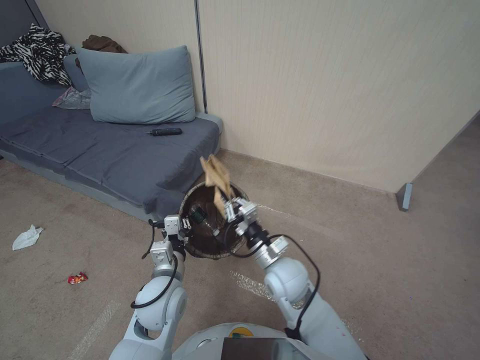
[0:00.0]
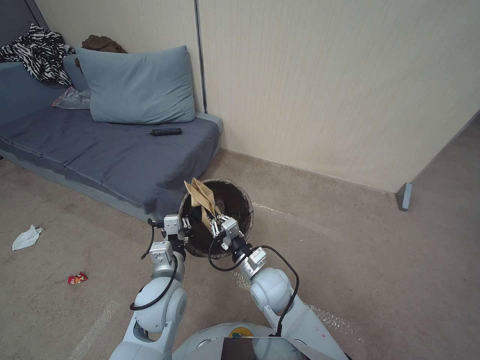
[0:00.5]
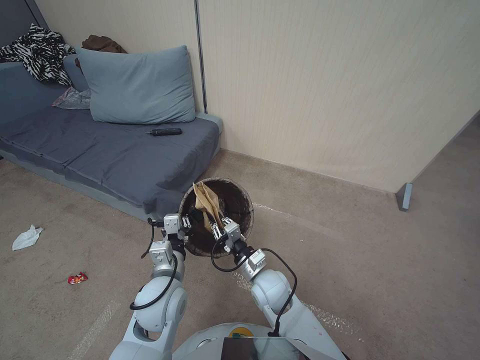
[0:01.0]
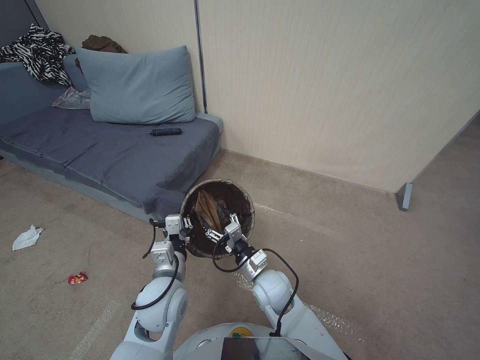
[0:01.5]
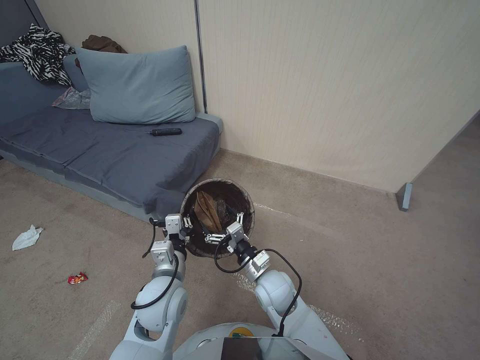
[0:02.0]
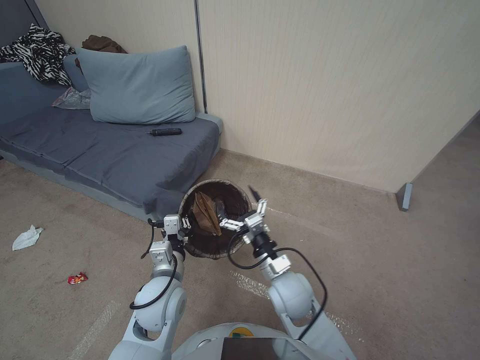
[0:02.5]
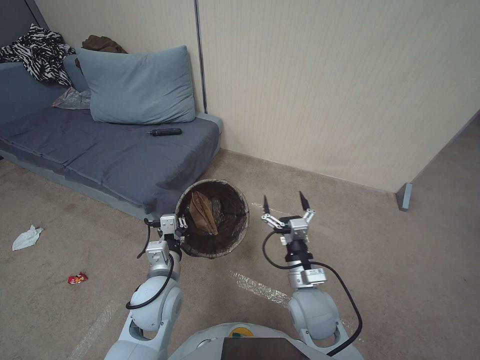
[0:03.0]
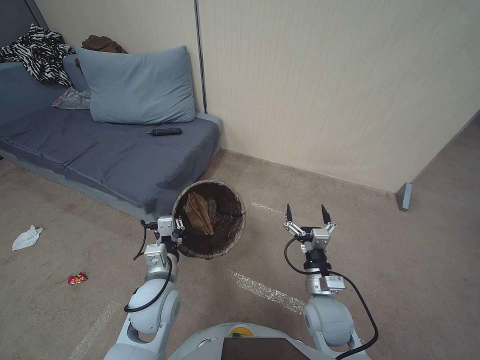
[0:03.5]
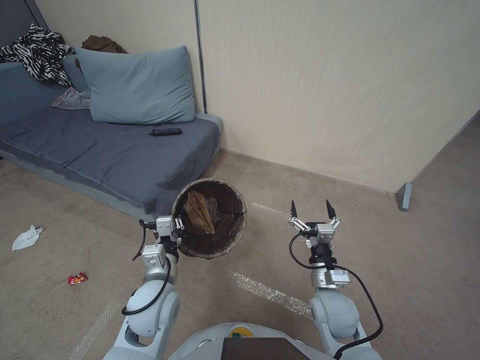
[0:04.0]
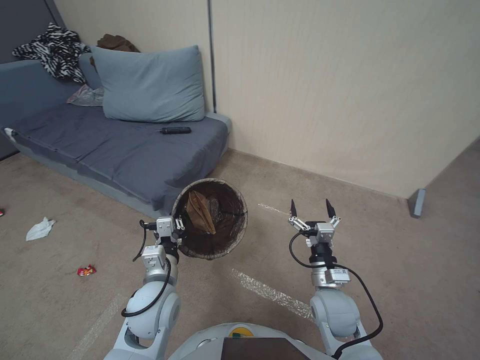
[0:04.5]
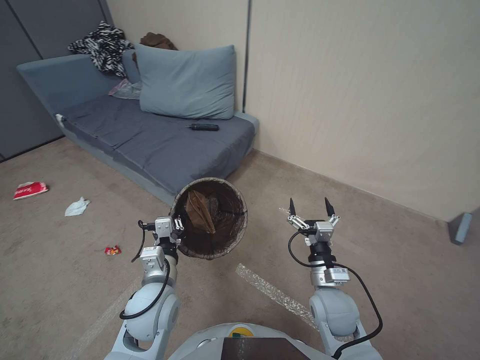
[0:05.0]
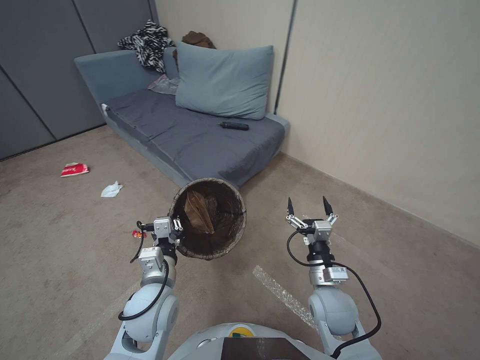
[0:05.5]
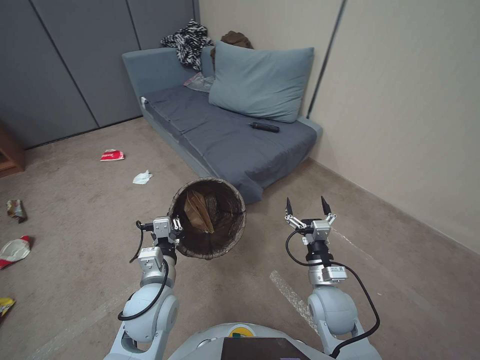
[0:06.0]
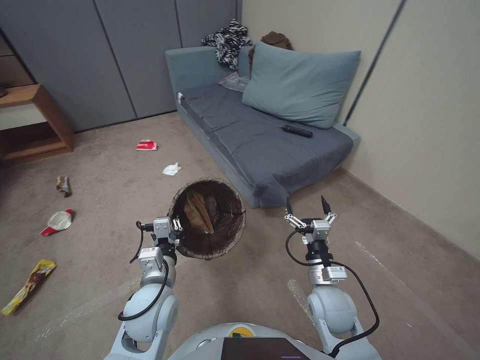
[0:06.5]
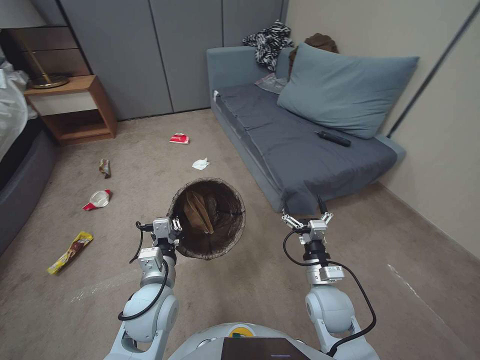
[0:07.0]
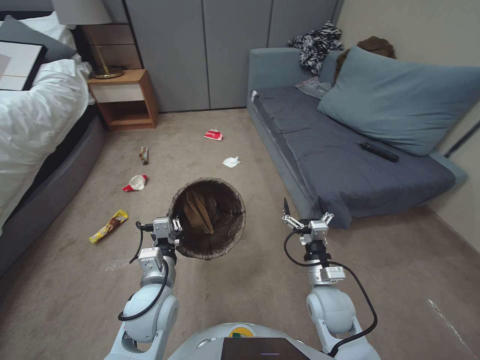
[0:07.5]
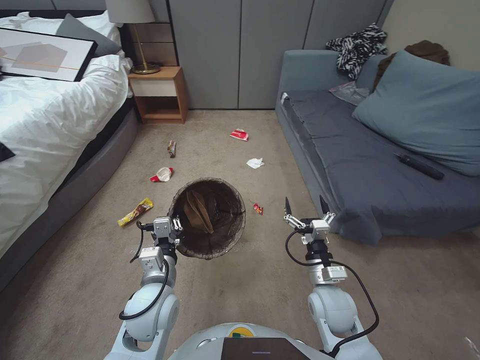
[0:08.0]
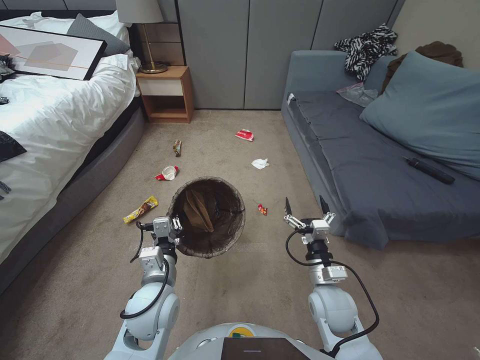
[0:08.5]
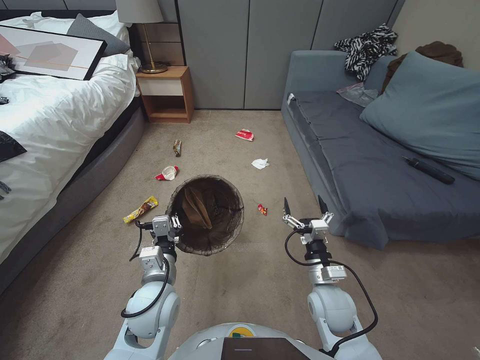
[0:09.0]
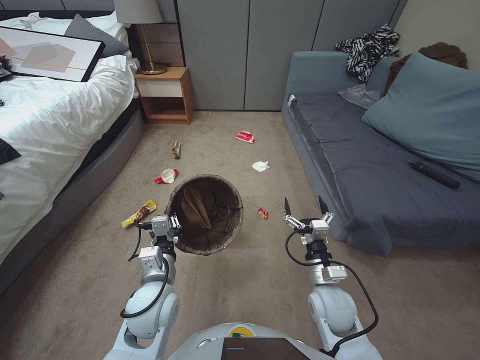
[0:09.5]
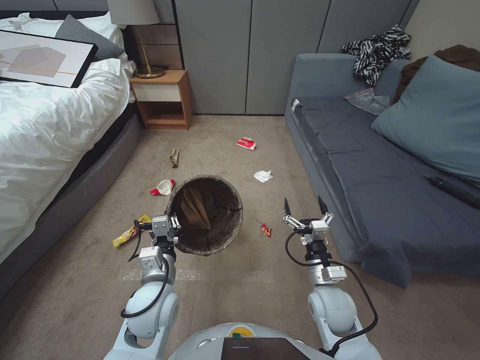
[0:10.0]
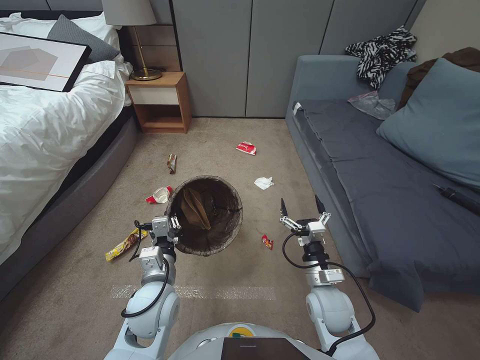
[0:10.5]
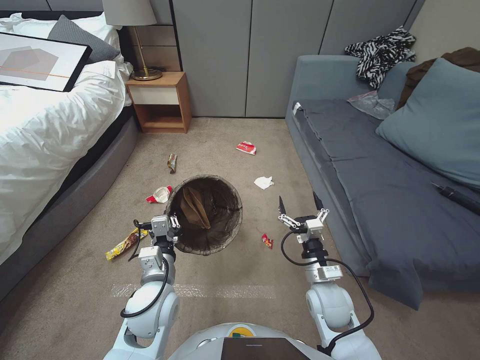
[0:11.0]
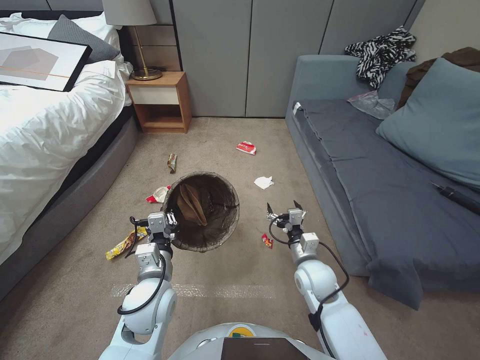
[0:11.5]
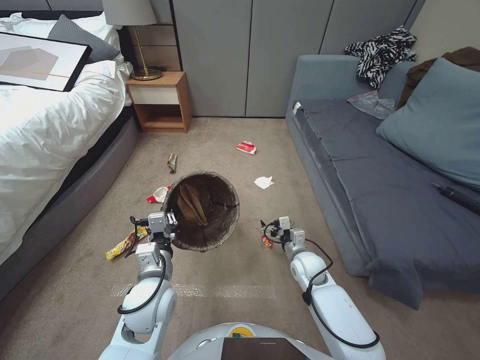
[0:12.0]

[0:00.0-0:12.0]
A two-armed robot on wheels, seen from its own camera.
Task of the whole recording: Pick up the trash bin, then pick up the garbage from the floor and place it into the trash bin.
0:00.0 to 0:02.0: The right gripper goes some 10 cm downward, and opens.
0:02.0 to 0:04.0: The right gripper travels to the right by about 15 cm.
0:08.0 to 0:10.0: Neither gripper changes place.
0:10.0 to 0:12.0: The right gripper is displaced forward and downward by about 10 cm.

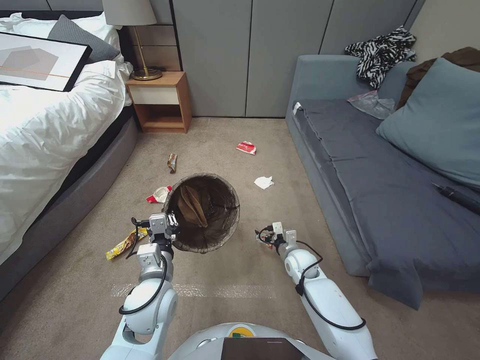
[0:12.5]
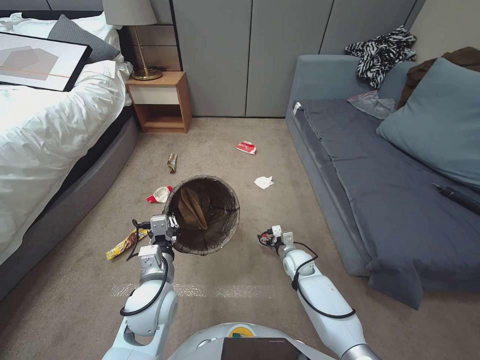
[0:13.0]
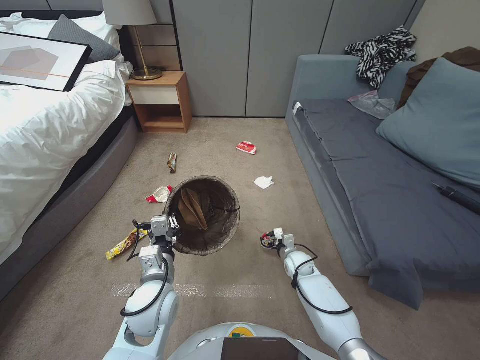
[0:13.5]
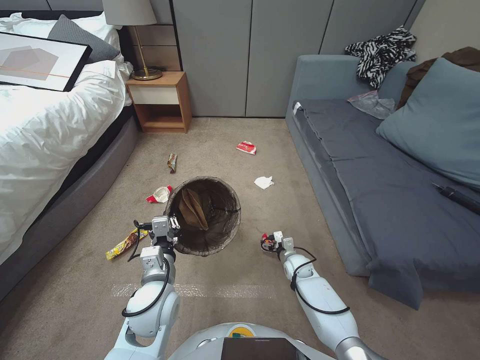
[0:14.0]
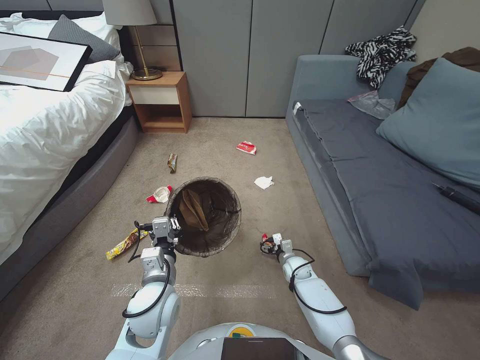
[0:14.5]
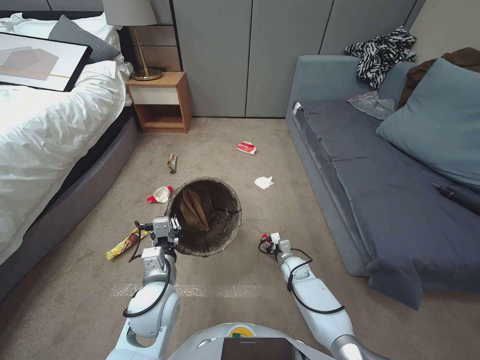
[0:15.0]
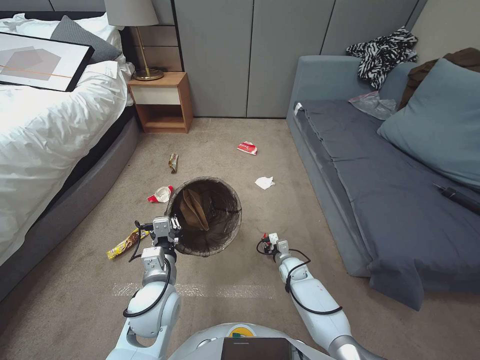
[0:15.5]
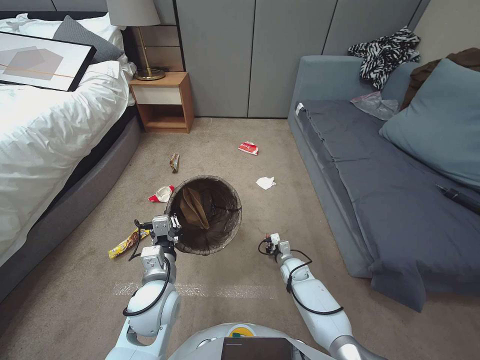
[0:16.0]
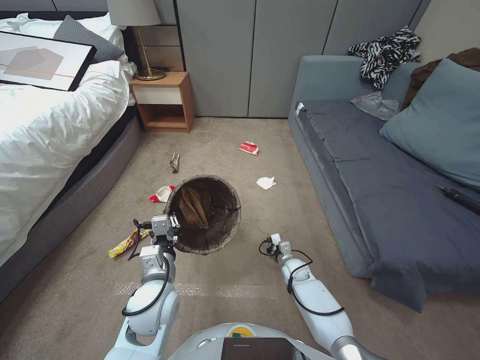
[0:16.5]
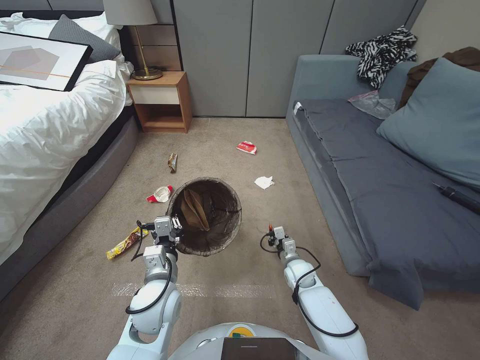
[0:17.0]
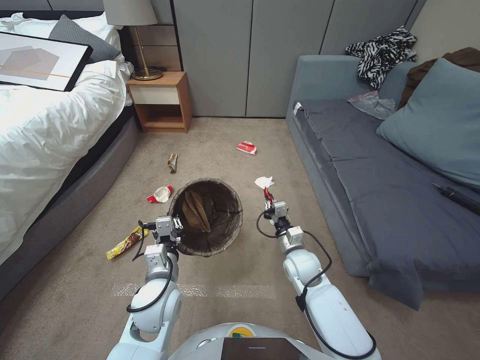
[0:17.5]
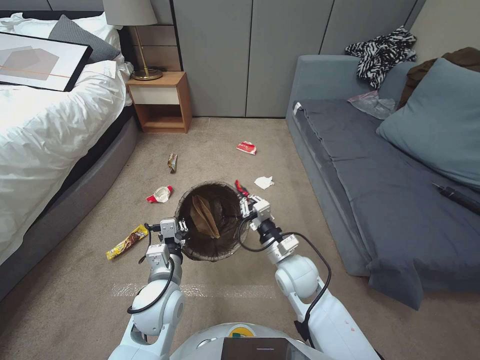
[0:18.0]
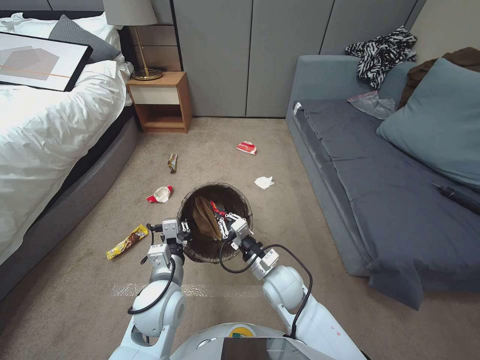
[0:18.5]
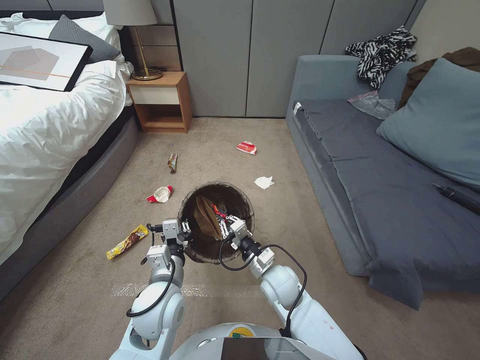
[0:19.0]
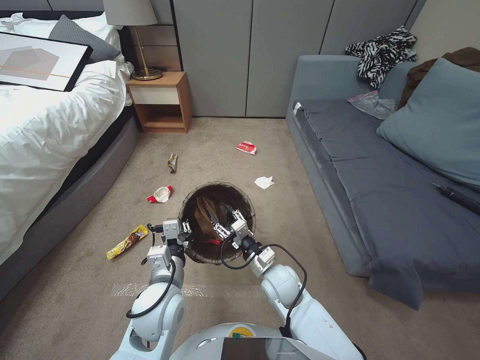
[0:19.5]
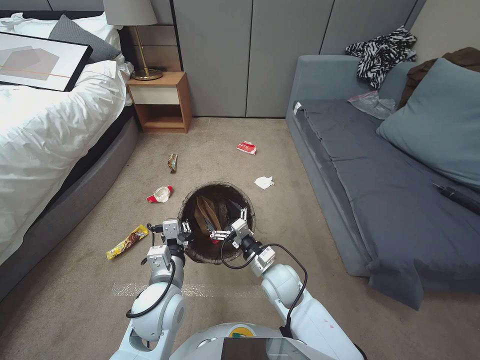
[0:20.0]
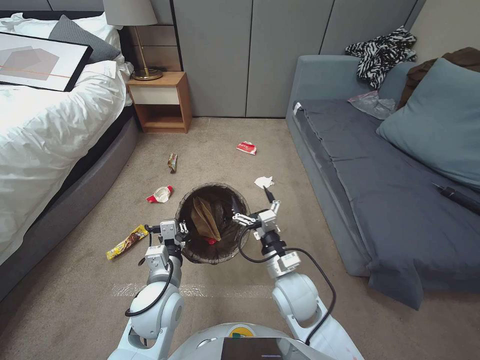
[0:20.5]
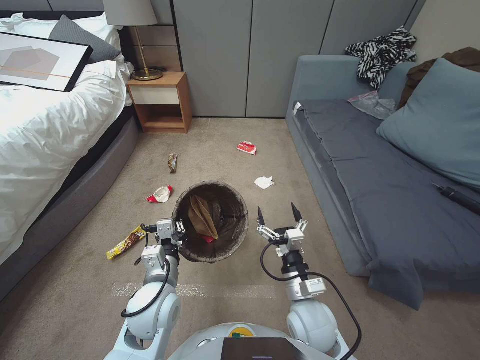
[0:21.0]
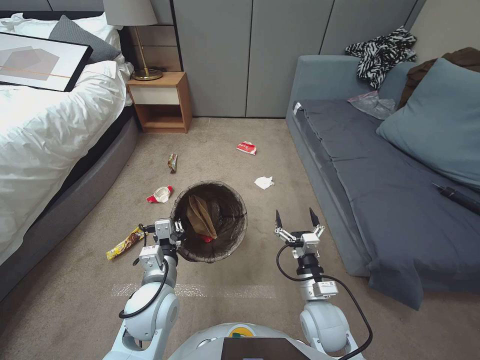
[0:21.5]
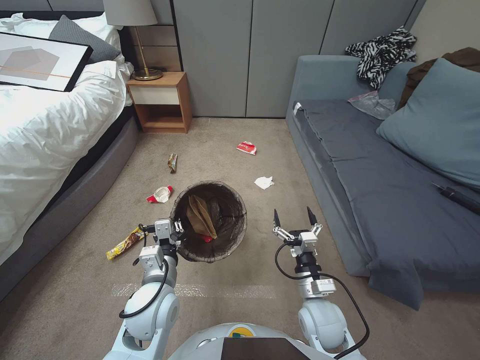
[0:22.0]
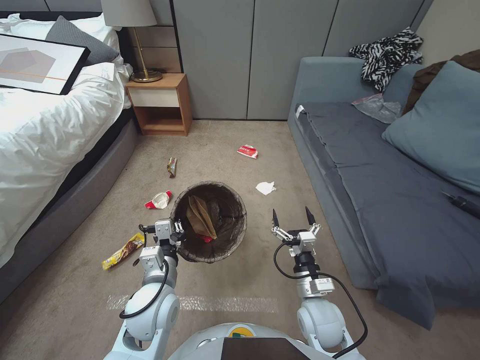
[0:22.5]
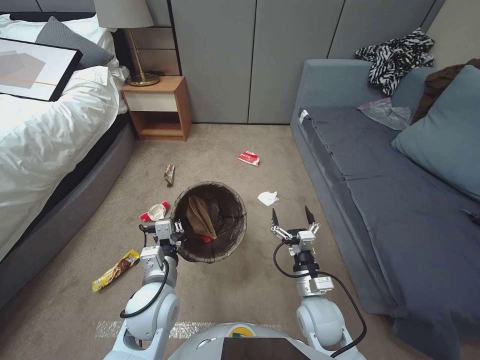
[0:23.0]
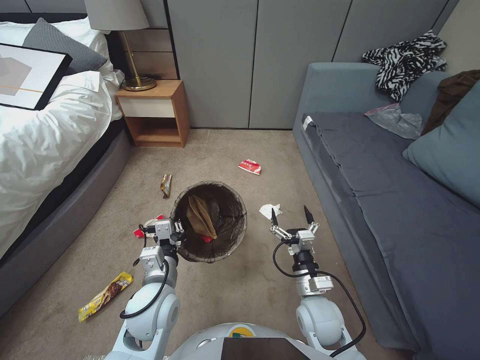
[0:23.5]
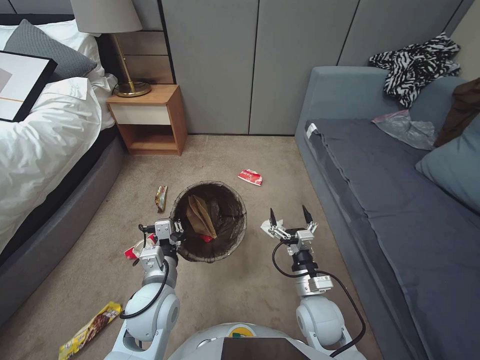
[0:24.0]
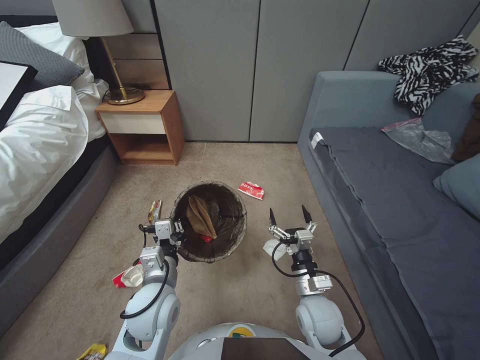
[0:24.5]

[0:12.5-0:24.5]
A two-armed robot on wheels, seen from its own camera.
Task of the whole recording: Pick up the trash bin, then pick up the garbage from the floor and place it into the trash bin.
0:12.5 to 0:14.5: The right gripper moves downward, approximately 10 cm.
0:14.5 to 0:16.5: The right gripper closes its fingers.
0:16.5 to 0:18.5: The right gripper is displaced upward, to the left and backward by roughly 25 cm.
0:18.5 to 0:20.5: The right gripper opens up.
0:20.5 to 0:22.5: The right gripper travels to the right and backward by about 10 cm.

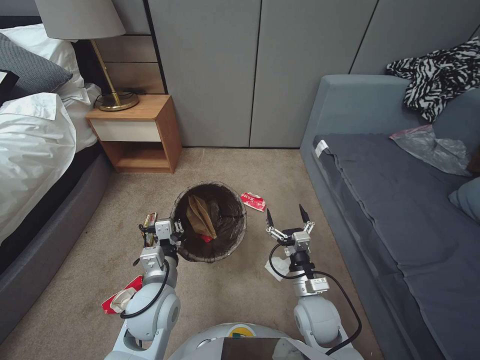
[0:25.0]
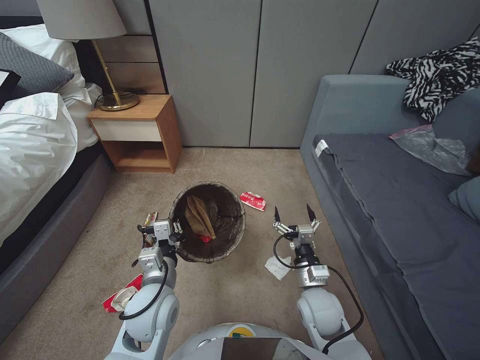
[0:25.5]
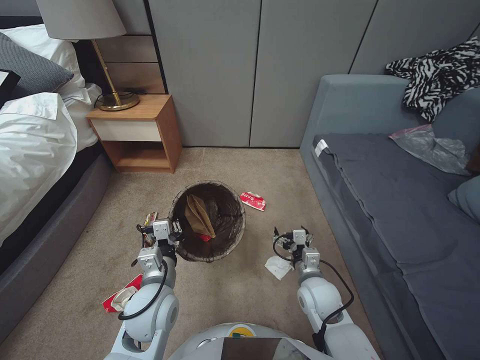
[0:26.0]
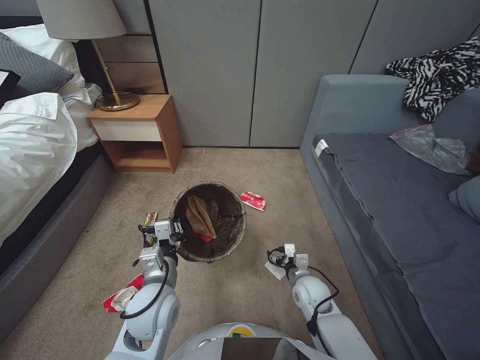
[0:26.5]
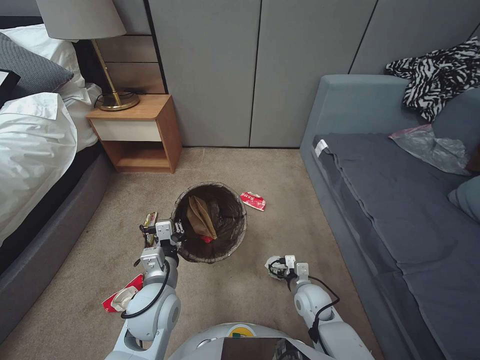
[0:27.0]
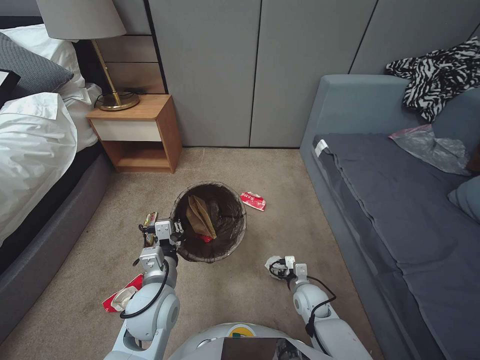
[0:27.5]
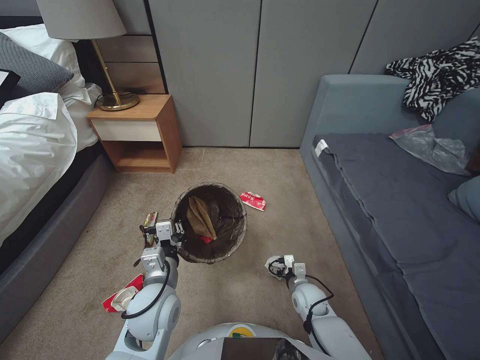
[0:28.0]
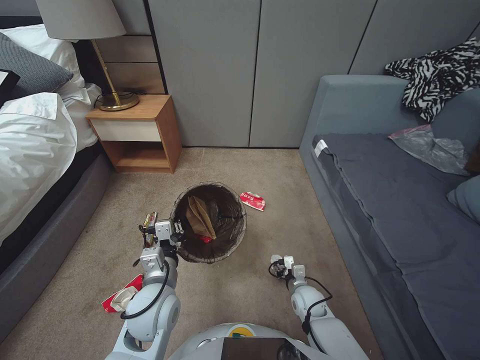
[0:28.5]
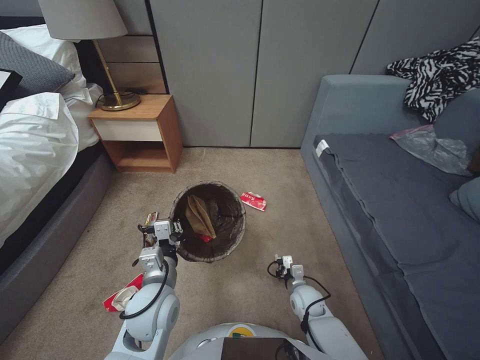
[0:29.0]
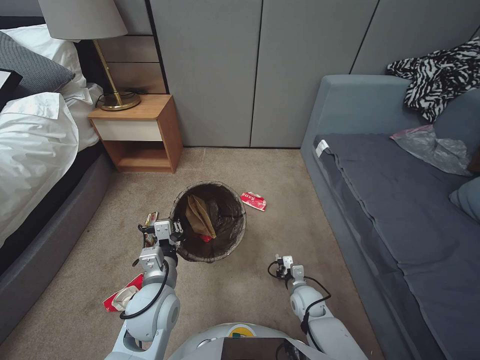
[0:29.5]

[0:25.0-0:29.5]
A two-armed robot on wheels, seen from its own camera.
Task of the whole recording: Pick up the trash bin, then pick up the garbage from the floor and place it into the trash bin.
0:25.0 to 0:27.0: The right gripper heads downward and forward, covering some 10 cm.
0:27.0 to 0:29.5: The right gripper moves downward, approximately 5 cm, and closes its fingers.
